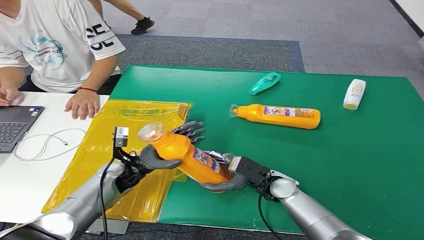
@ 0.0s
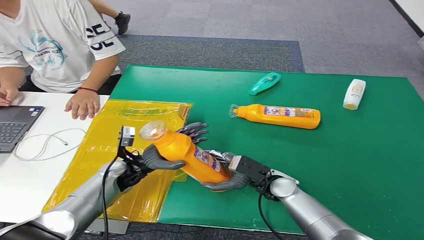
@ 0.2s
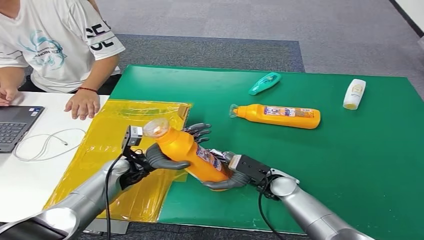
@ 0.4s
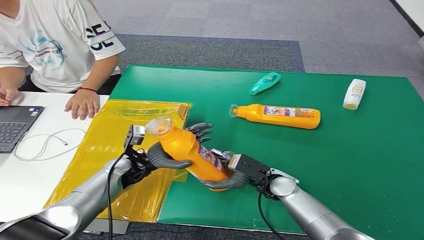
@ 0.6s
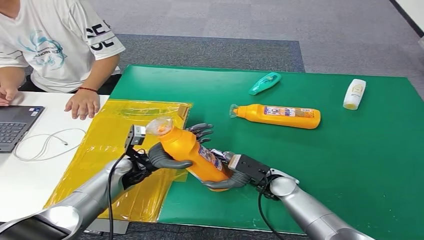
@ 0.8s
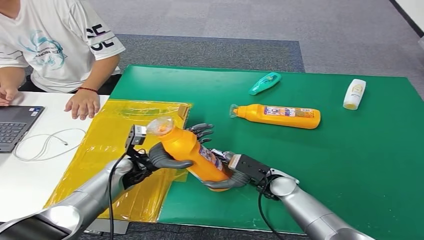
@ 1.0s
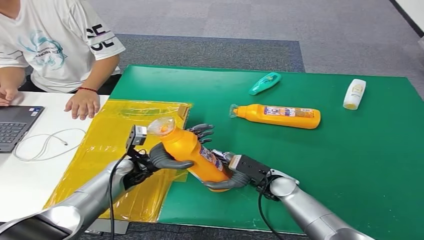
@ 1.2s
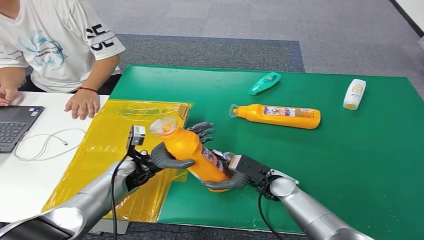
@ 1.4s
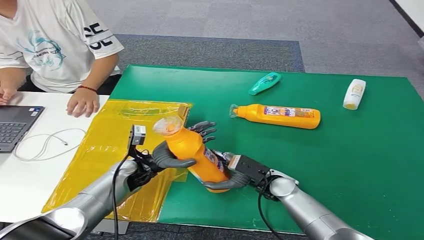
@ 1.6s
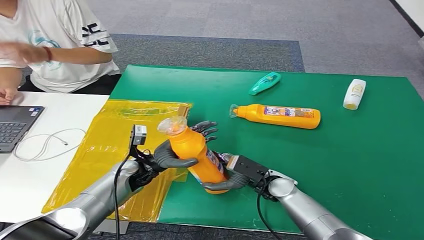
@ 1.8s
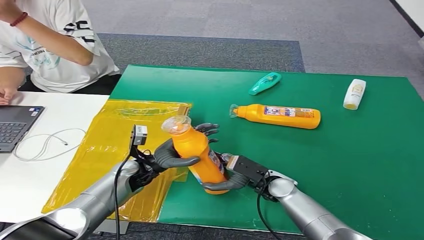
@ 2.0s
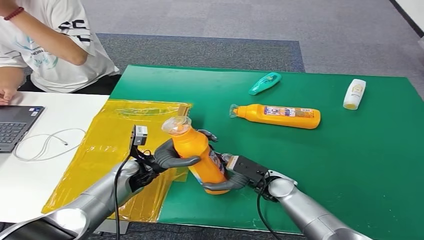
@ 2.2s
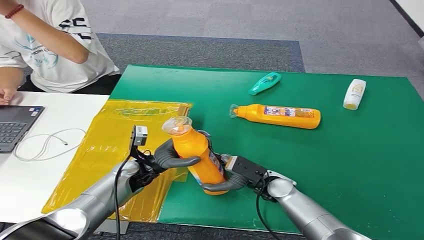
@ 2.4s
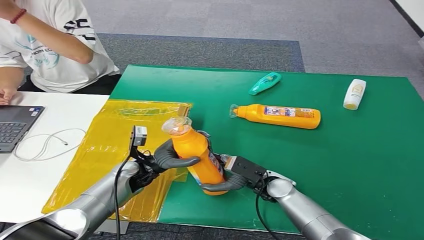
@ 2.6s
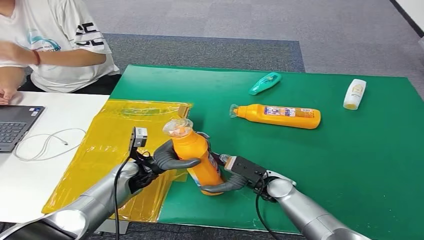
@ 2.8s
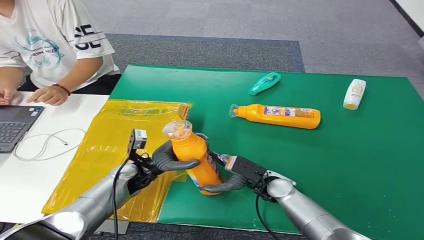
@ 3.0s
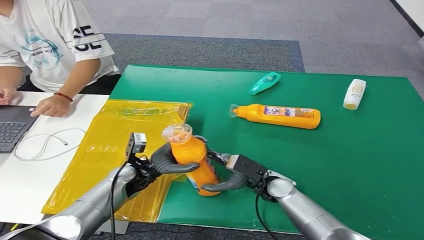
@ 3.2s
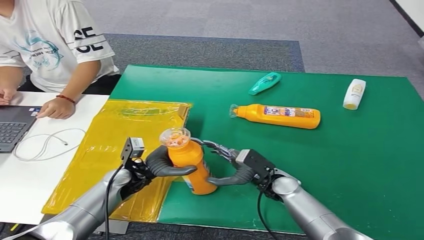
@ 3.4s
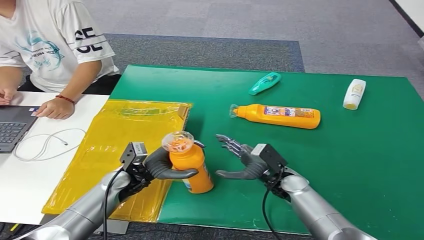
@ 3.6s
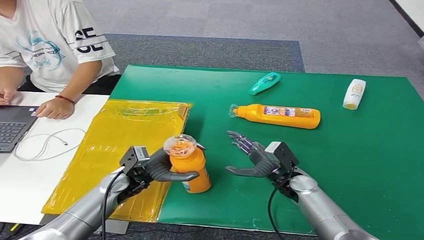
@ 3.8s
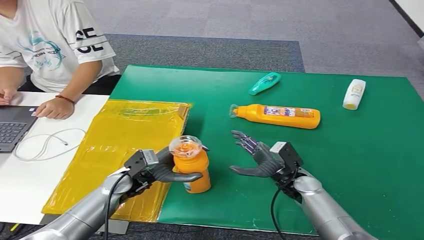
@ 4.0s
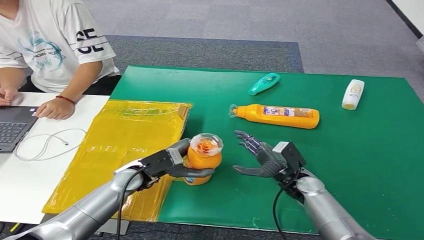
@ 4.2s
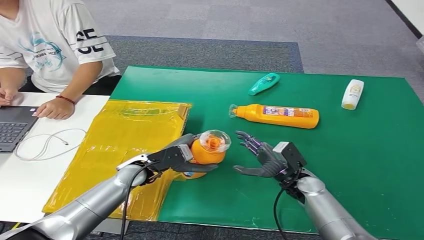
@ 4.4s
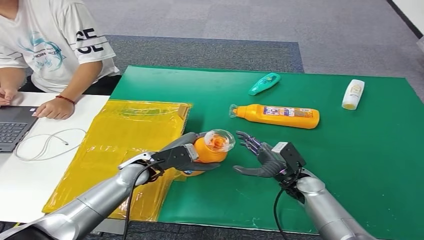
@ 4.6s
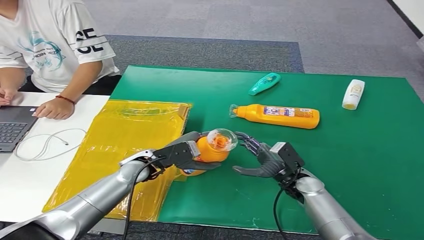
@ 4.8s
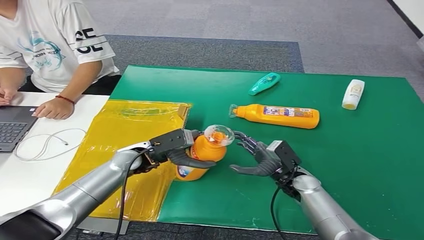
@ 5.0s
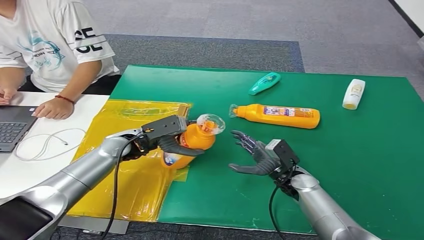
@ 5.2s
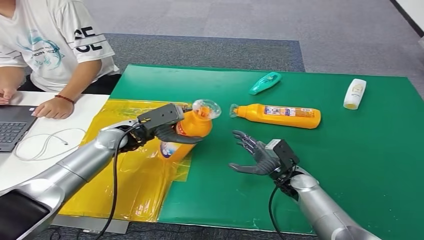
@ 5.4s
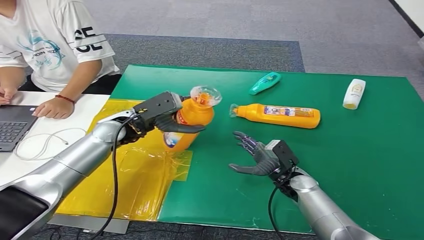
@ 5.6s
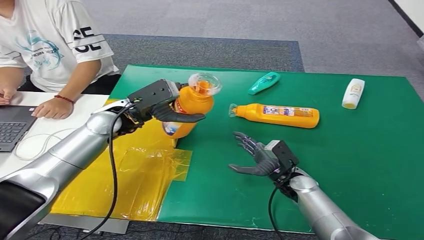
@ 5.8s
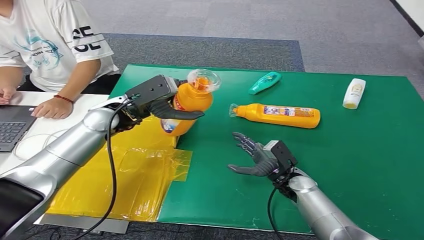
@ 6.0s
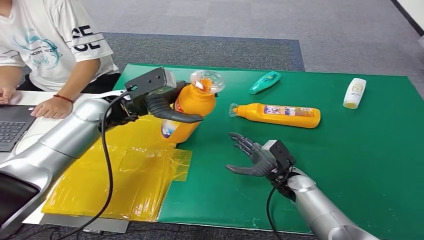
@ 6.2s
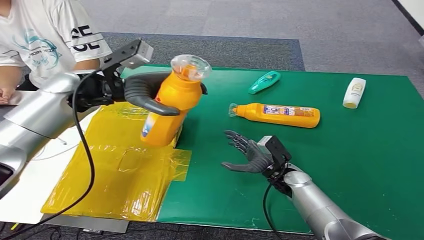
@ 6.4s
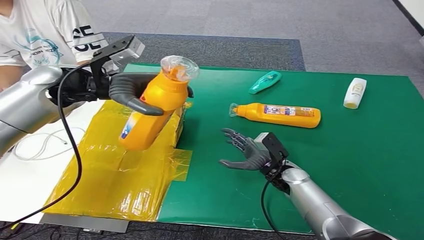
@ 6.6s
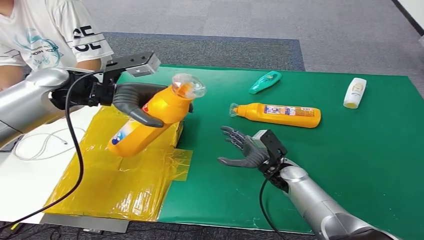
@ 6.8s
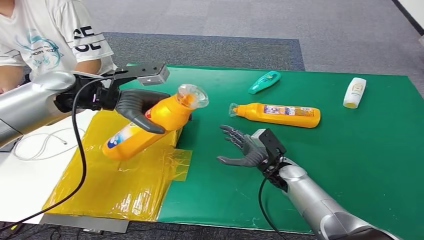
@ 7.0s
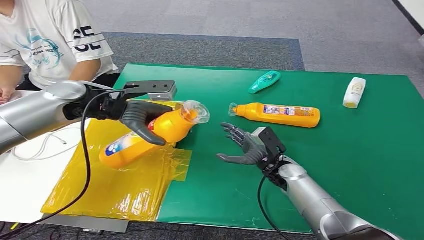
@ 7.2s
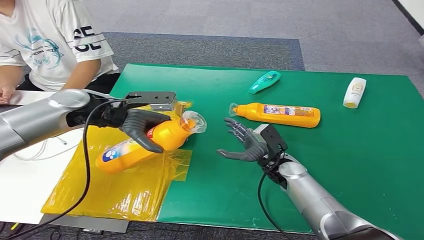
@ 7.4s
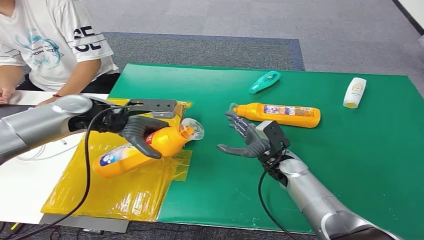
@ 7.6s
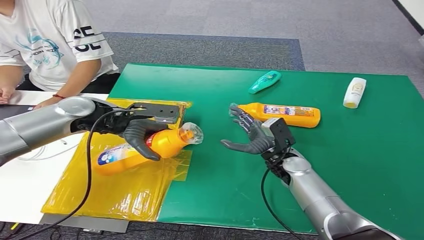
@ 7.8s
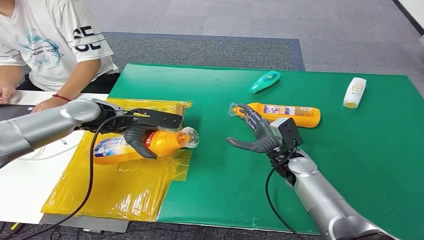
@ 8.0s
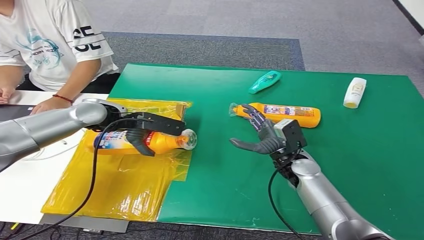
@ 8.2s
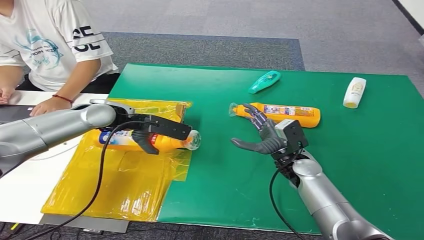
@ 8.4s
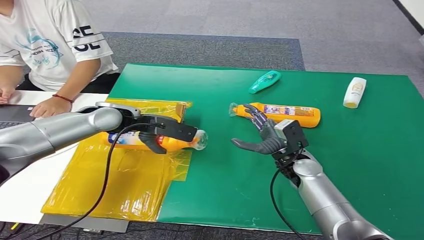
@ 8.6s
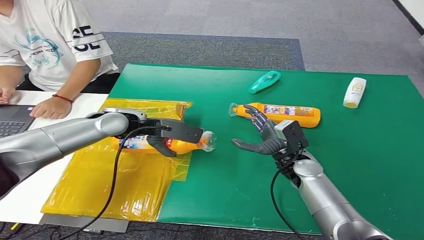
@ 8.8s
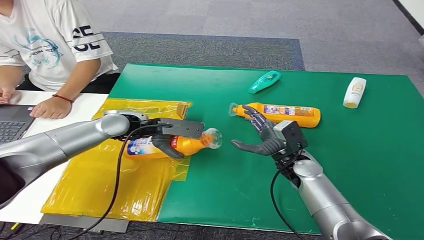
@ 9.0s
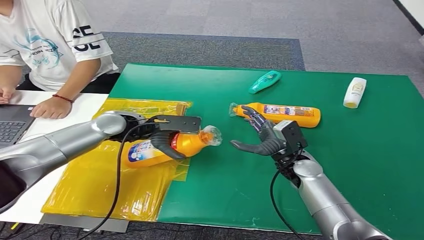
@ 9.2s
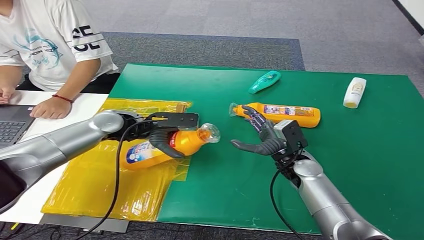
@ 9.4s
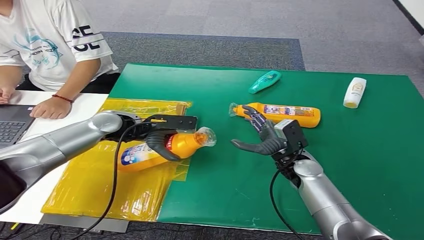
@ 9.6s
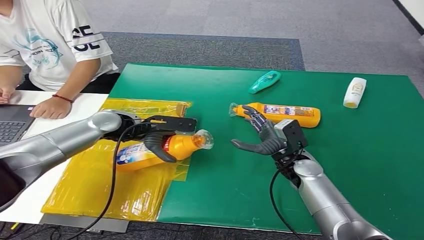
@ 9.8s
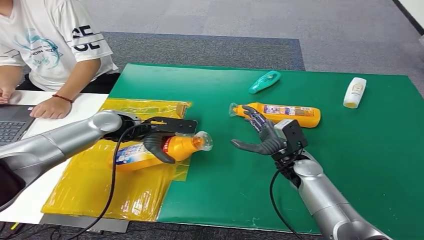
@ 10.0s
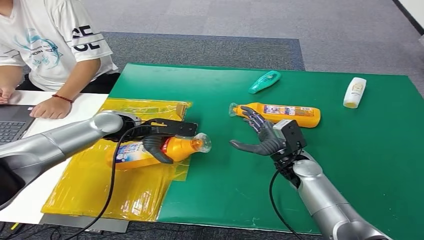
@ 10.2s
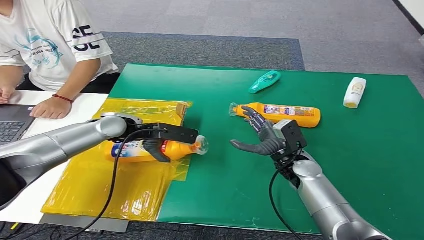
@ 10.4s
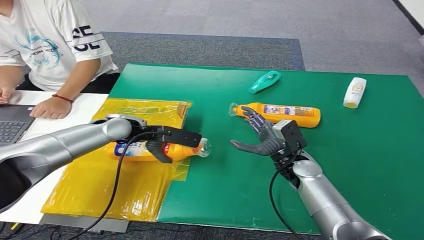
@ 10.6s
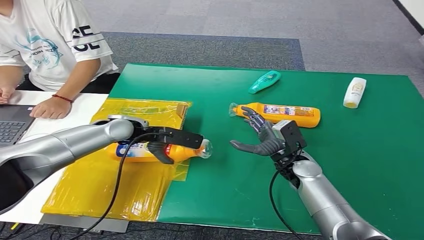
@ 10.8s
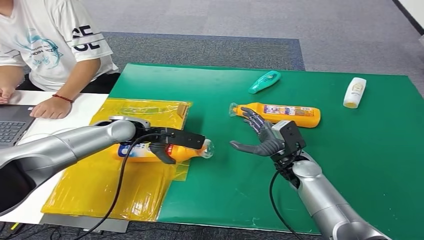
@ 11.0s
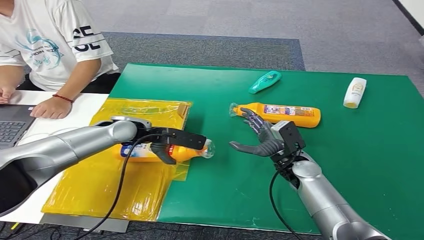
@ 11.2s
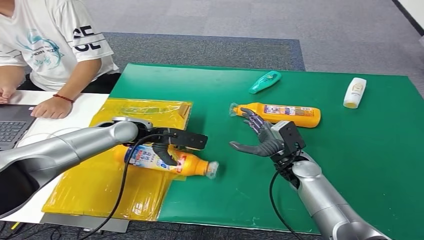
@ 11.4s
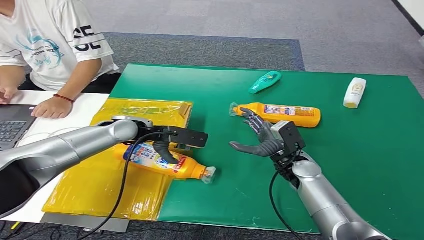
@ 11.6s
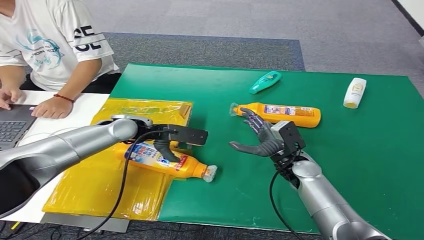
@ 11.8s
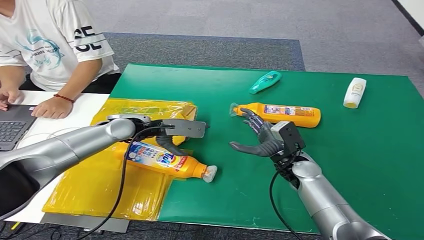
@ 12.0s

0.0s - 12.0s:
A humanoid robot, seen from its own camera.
Step, 0.0s - 12.0s: Turn the bottle to the front side.
0.0s - 1.6s: The hands stay close to where they were, moving slightly.
1.6s - 3.0s: The two hands keep their place.
3.0s - 4.4s: The right hand is displaced to the right by approximately 5 cm.
9.0s - 12.0s: The hands stay close to where they were, moving slightly.
